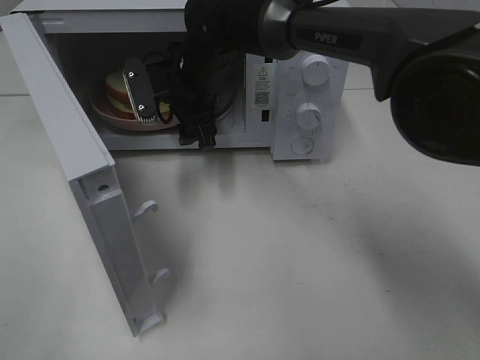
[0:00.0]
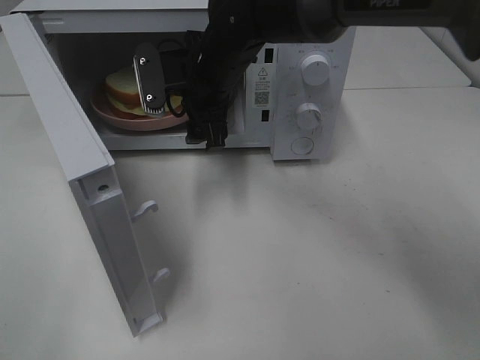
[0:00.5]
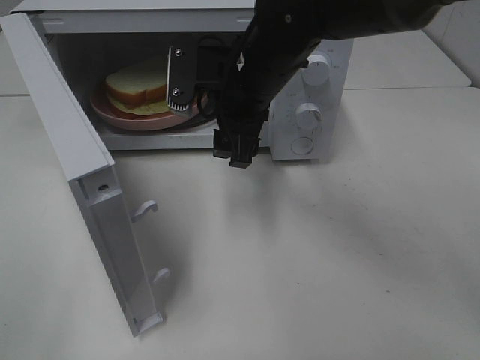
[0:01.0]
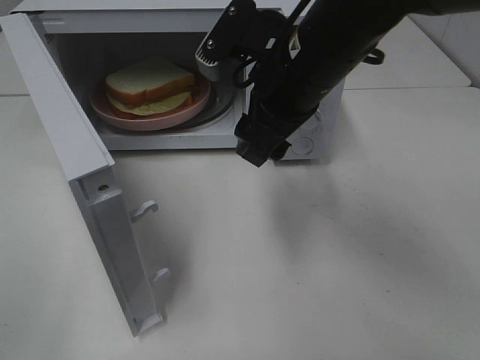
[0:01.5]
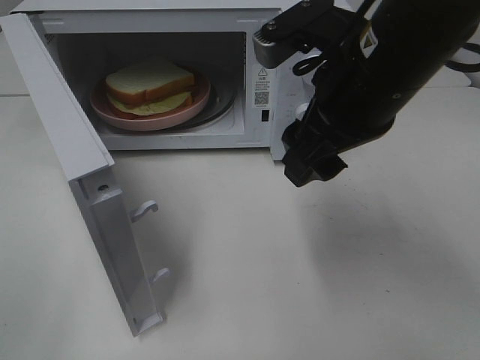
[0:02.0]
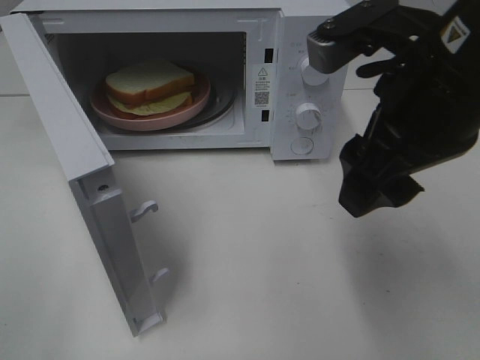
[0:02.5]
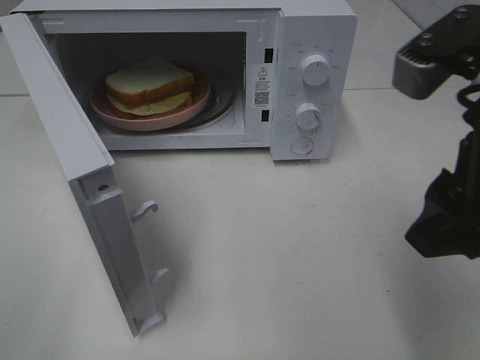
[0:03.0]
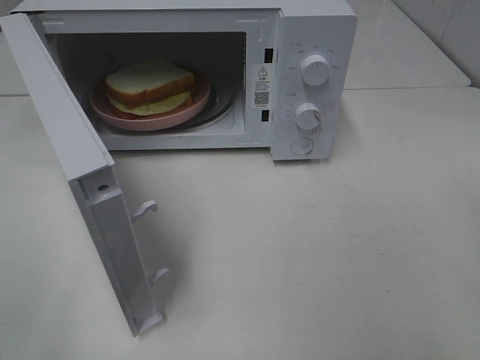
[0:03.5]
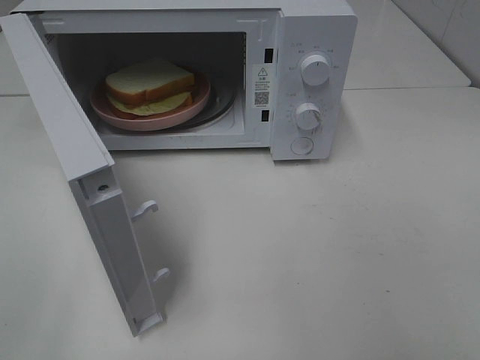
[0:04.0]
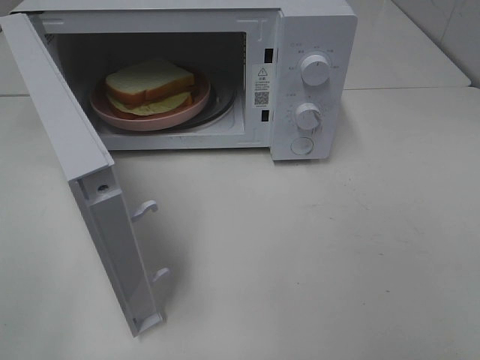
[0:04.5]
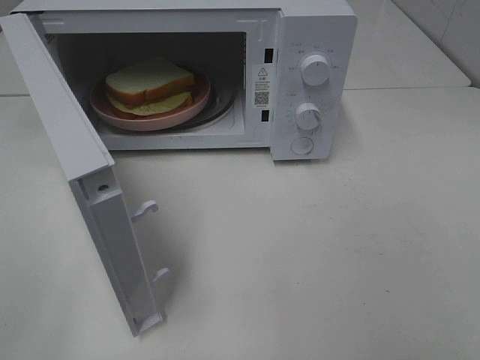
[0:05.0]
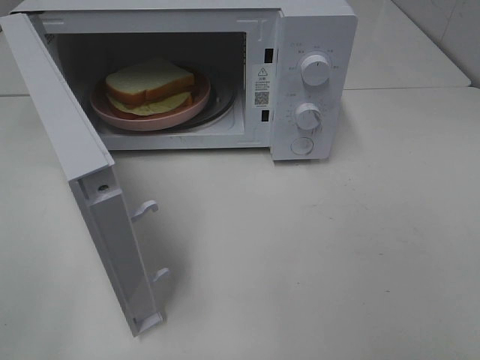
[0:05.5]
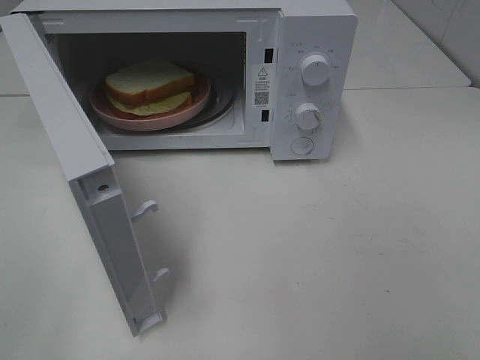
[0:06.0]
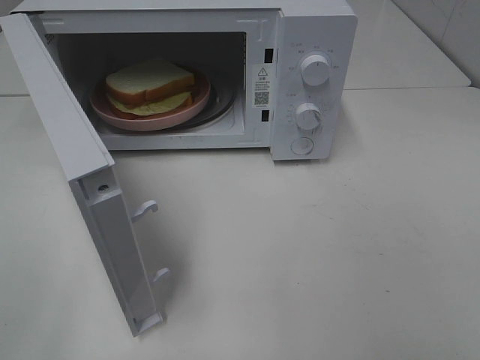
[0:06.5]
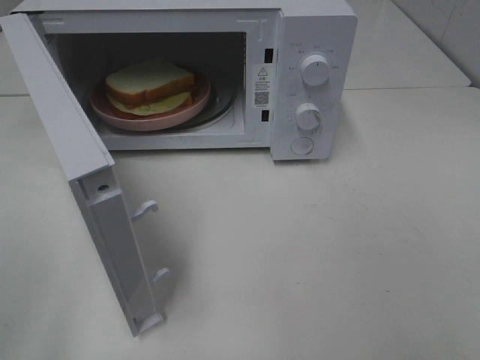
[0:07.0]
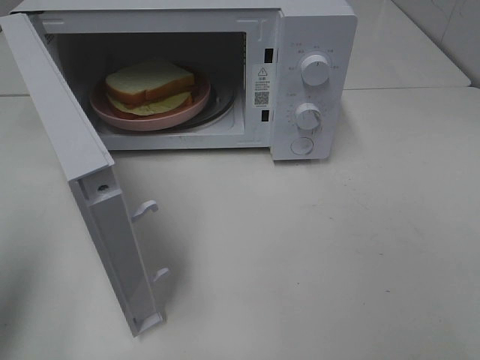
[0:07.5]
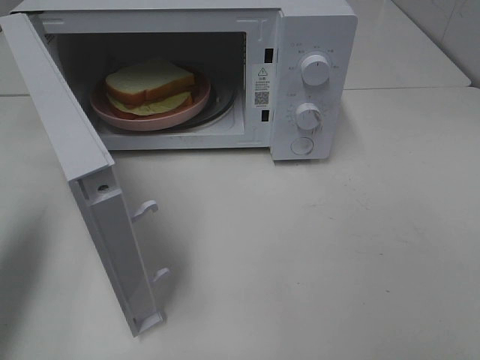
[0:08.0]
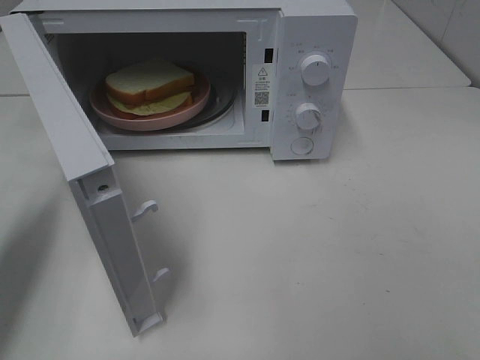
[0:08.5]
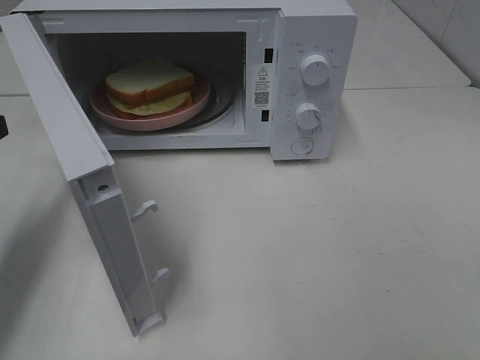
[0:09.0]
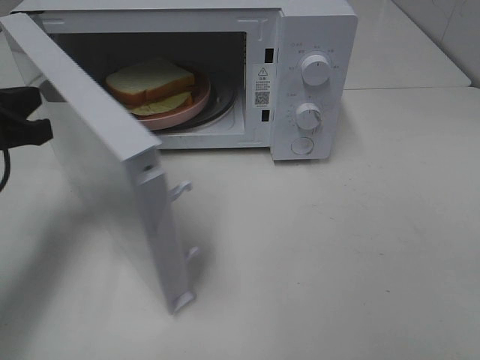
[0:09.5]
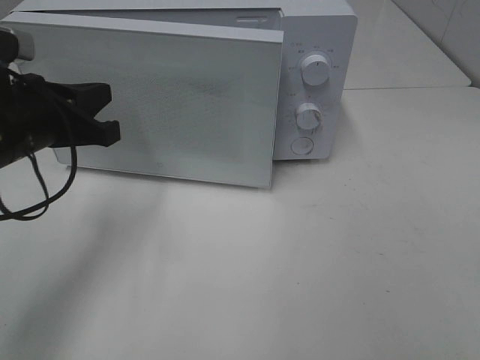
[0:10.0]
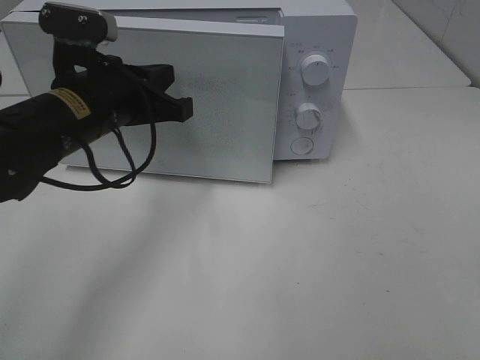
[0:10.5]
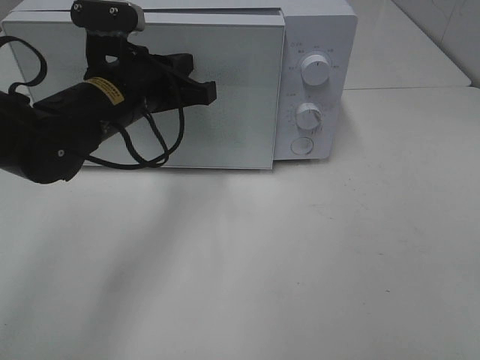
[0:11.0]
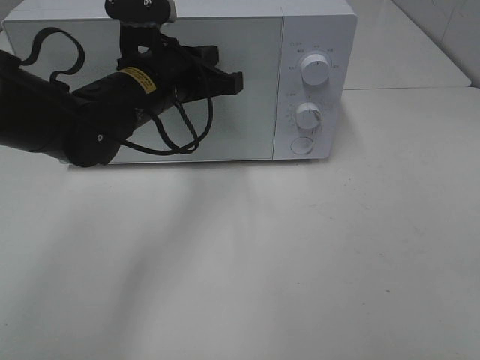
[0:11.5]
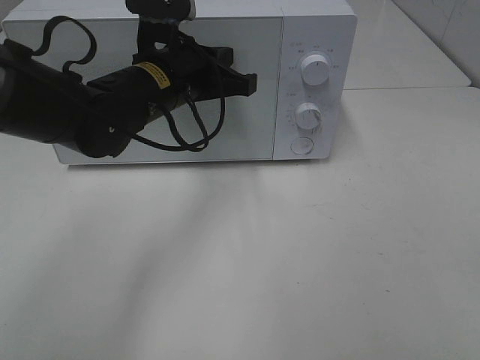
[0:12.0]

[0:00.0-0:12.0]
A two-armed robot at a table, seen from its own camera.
Task of the whole recording: Heat Sandwich.
0:00.0 to 0:02.0: The right gripper travels backward, to the right and upward by some 25 cm.
0:02.0 to 0:04.0: The right gripper moves backward and to the right, about 25 cm.
0:06.0 to 0:08.0: The left gripper moves forward, about 20 cm, and closes.
0:08.0 to 0:10.0: The left gripper shifts approximately 15 cm to the right, downward and forward.
0:10.0 to 0:12.0: The left gripper shifts approximately 15 cm to the right and forward.

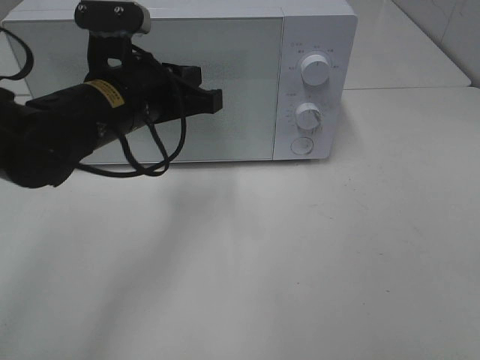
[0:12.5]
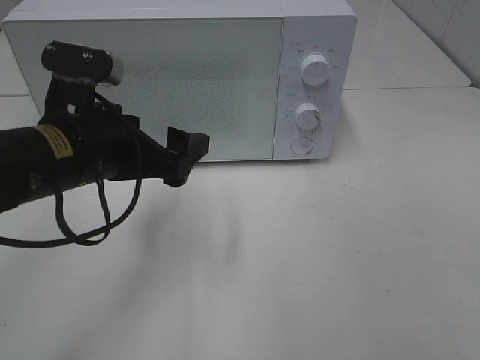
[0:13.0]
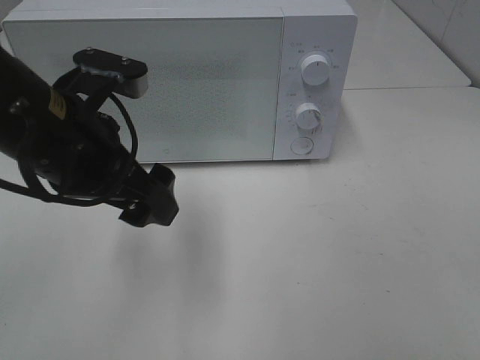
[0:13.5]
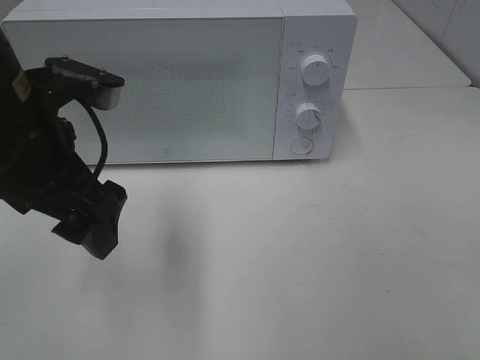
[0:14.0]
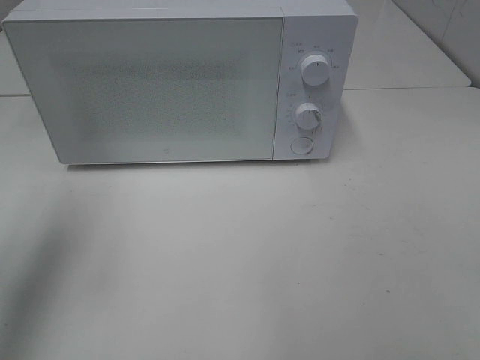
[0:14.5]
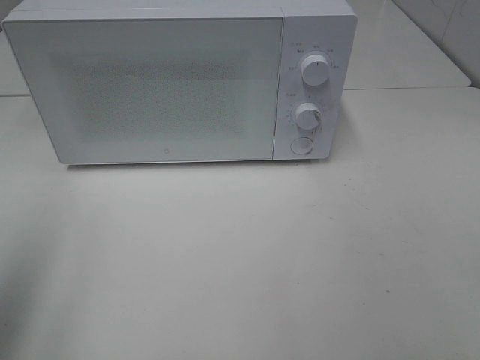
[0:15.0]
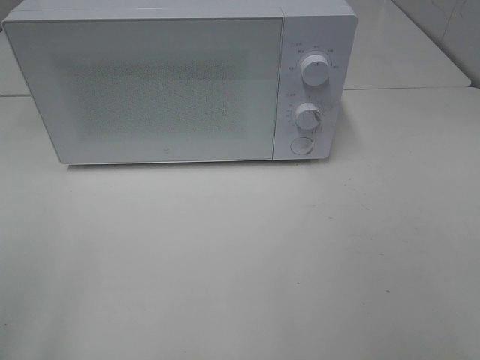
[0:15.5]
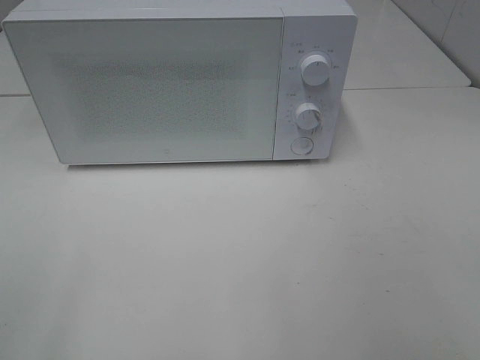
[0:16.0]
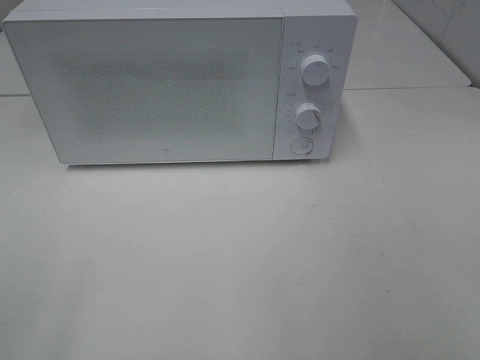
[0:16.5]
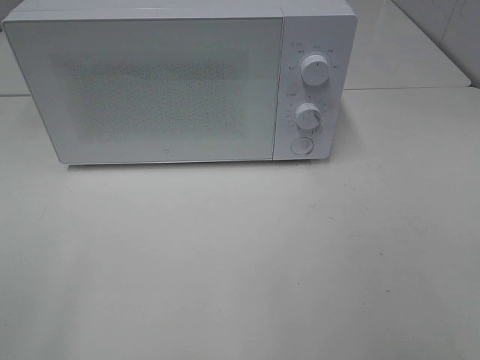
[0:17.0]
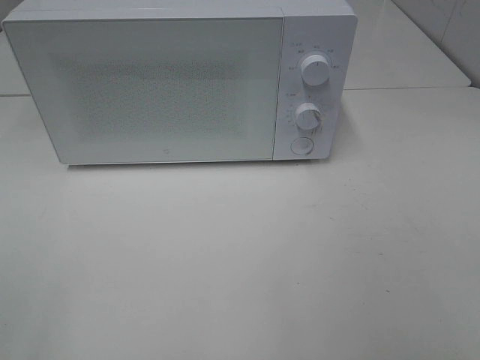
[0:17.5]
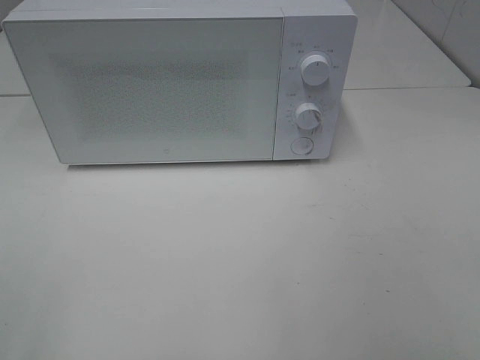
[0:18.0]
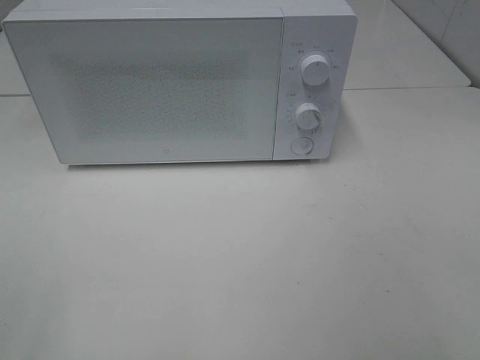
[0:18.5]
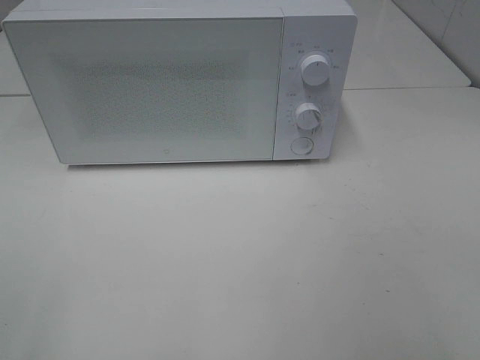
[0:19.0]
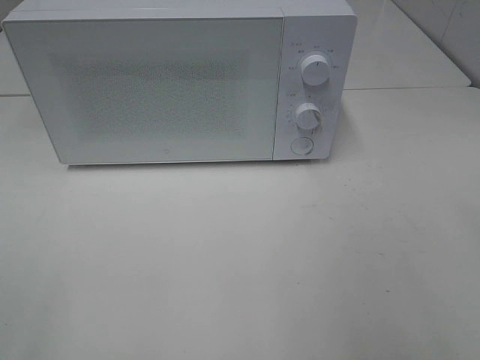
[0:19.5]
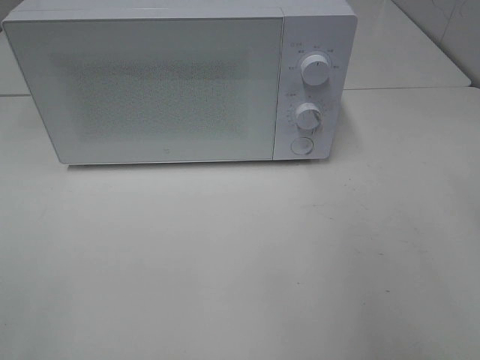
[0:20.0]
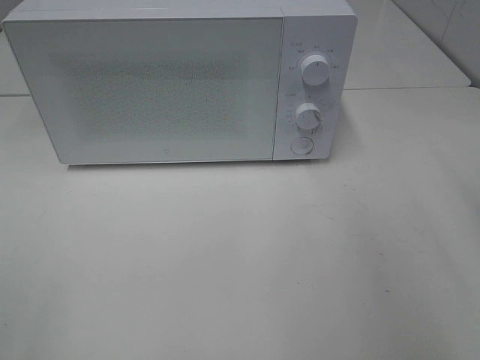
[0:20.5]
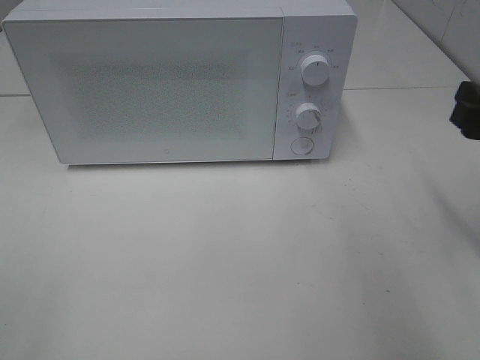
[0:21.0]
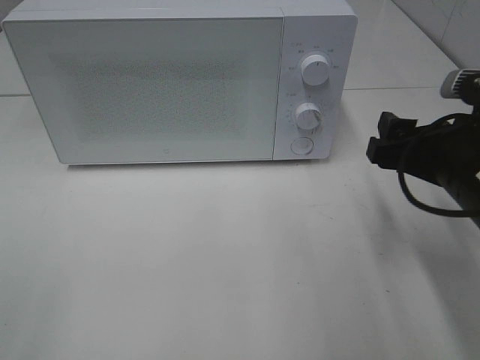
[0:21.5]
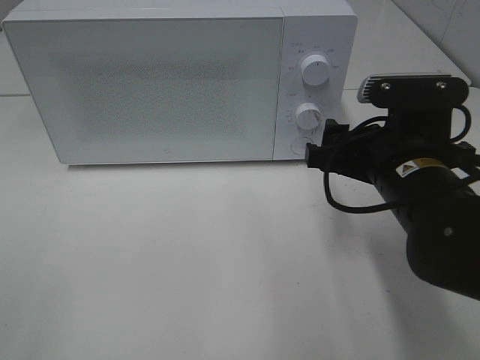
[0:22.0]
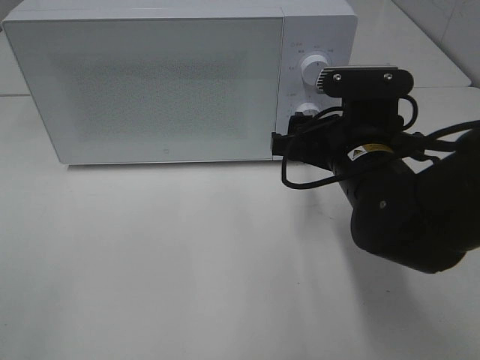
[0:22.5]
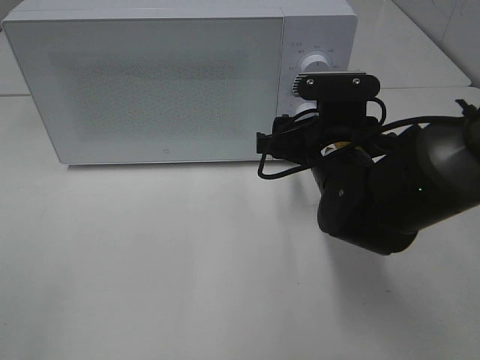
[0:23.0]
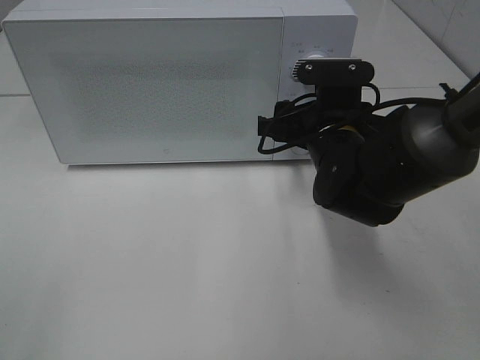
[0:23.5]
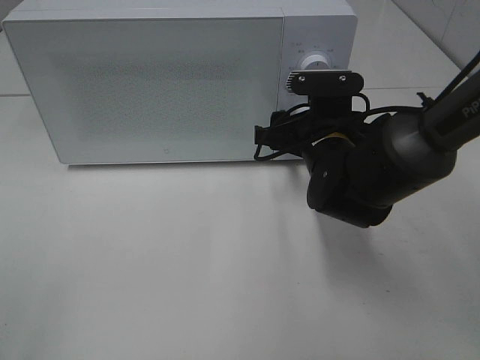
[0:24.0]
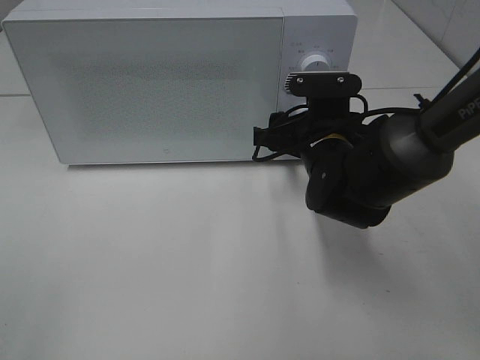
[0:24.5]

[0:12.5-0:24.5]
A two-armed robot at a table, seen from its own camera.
Task of the whole recording: Heat Sandwich.
0:12.5 to 0:14.5: The left gripper shifts about 25 cm to the left, upward and backward, and opens.
0:14.5 to 0:16.5: The left gripper is displaced backward by roughly 25 cm.
0:20.5 to 0:22.5: The right gripper moves to the left, downward and forward, approximately 20 cm.
0:22.5 to 0:24.5: The right gripper moves forward, approximately 5 cm.

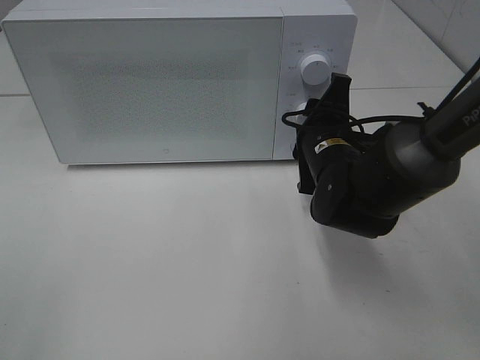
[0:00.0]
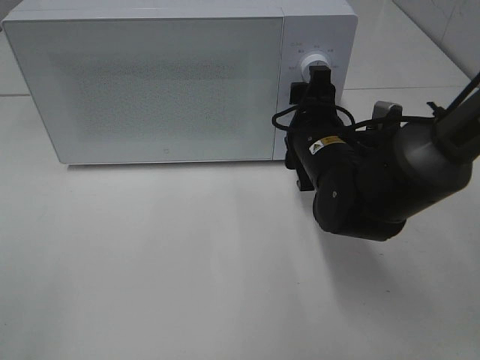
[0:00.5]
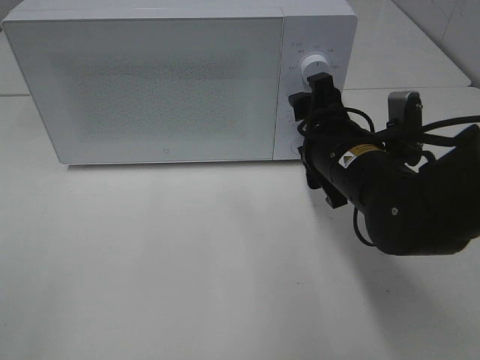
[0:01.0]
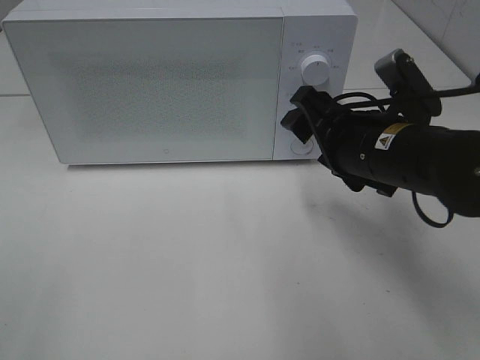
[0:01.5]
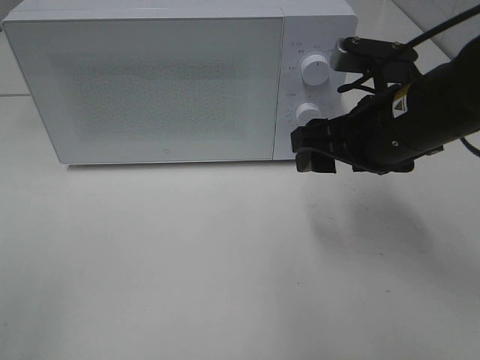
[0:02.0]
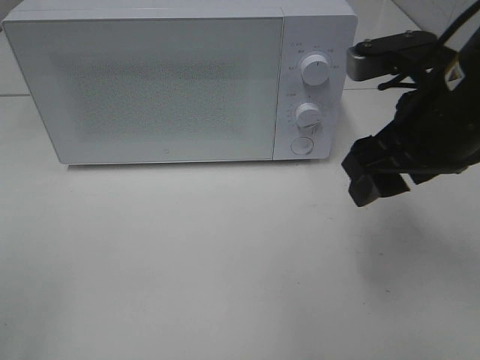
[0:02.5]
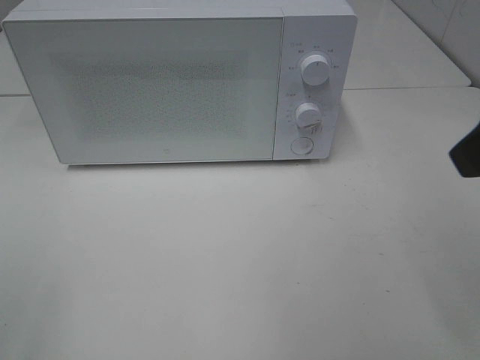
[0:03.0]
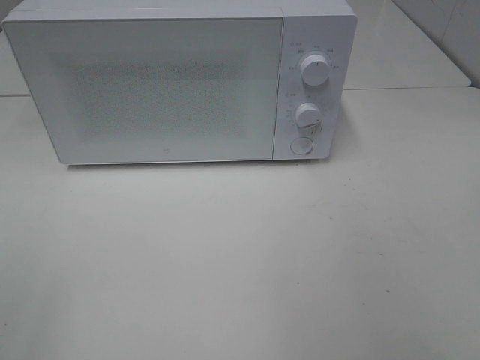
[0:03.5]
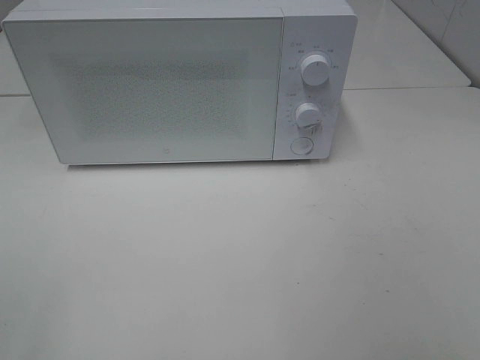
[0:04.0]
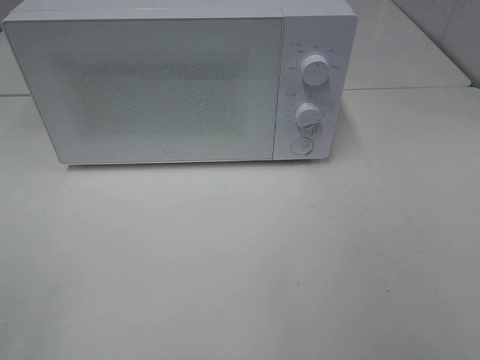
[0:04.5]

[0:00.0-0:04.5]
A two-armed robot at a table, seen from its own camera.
Task of the whole recording: Heat Sandwich.
0:00.0 to 0:02.0: The right gripper goes approximately 10 cm upward and backward.
0:02.0 to 0:04.5: The right gripper shifts about 30 cm backward and to the right.
